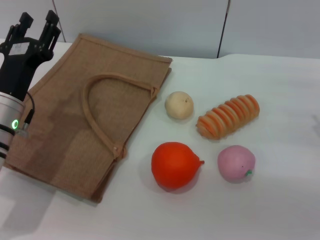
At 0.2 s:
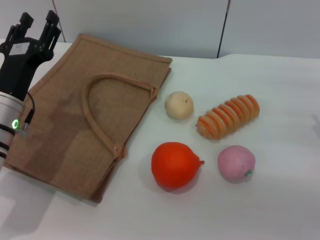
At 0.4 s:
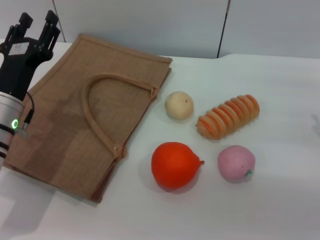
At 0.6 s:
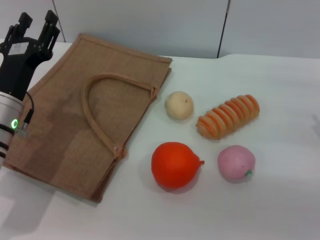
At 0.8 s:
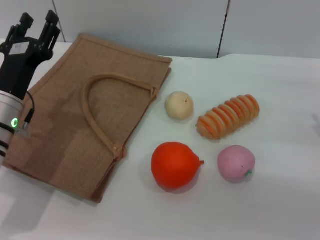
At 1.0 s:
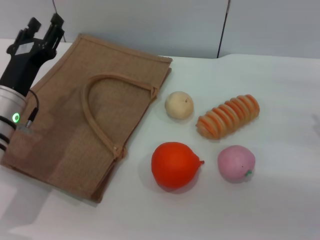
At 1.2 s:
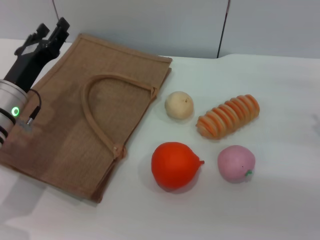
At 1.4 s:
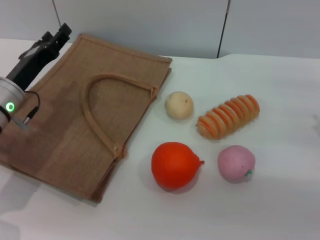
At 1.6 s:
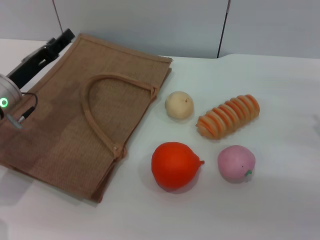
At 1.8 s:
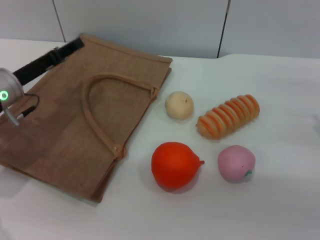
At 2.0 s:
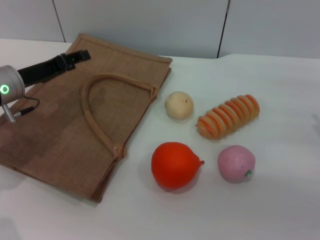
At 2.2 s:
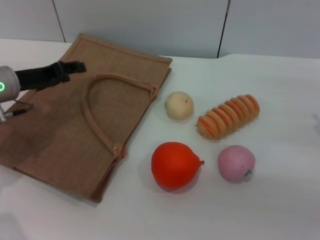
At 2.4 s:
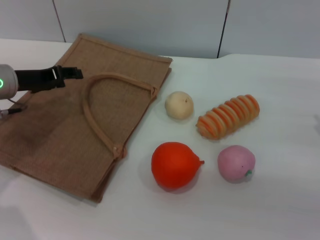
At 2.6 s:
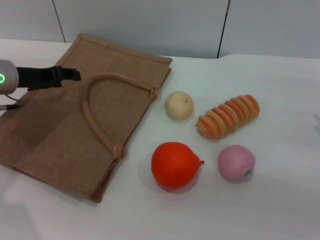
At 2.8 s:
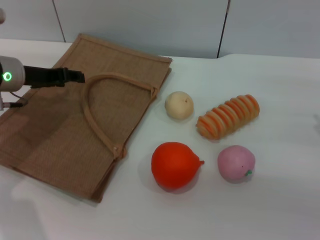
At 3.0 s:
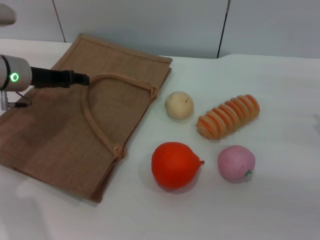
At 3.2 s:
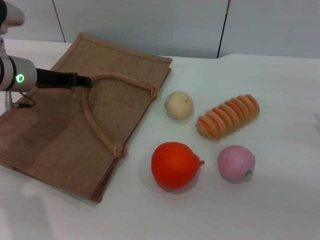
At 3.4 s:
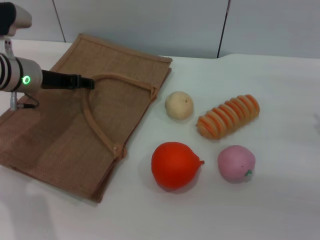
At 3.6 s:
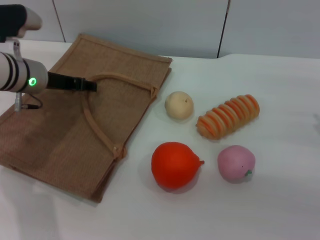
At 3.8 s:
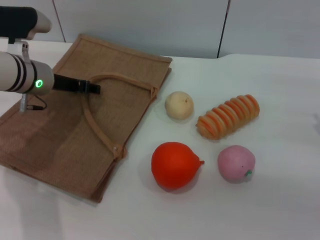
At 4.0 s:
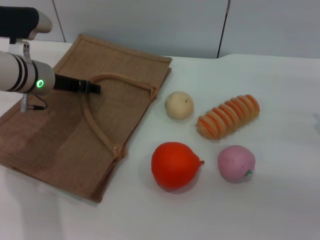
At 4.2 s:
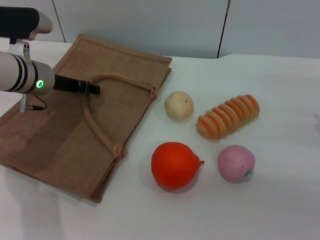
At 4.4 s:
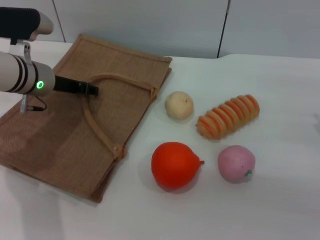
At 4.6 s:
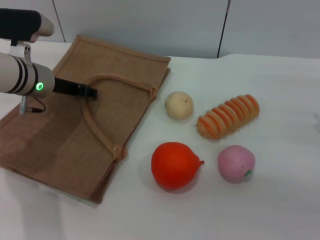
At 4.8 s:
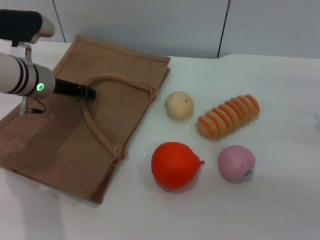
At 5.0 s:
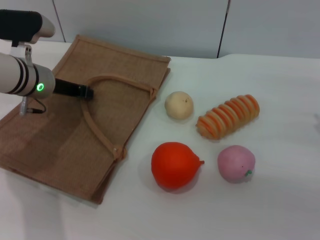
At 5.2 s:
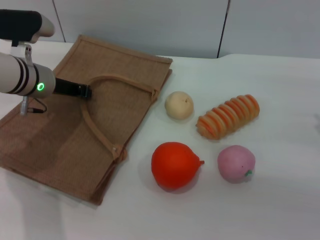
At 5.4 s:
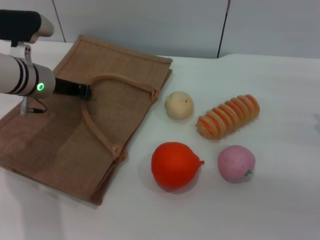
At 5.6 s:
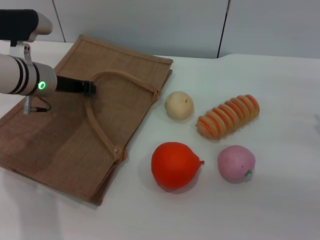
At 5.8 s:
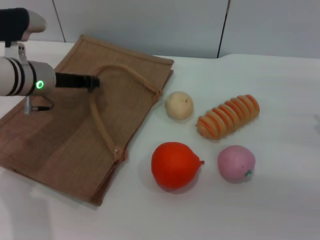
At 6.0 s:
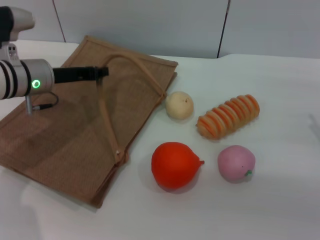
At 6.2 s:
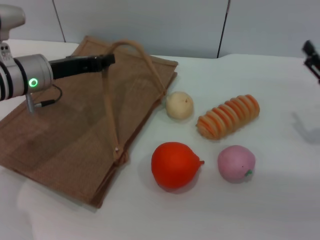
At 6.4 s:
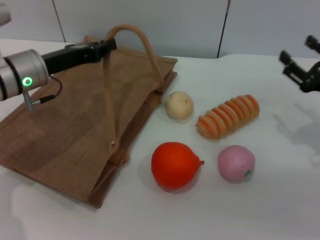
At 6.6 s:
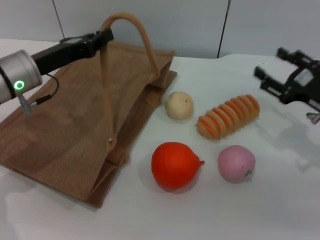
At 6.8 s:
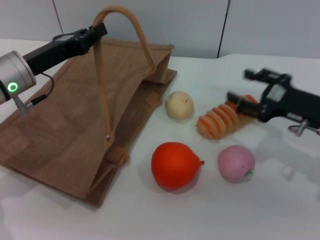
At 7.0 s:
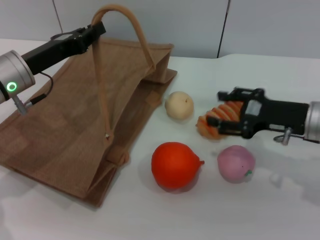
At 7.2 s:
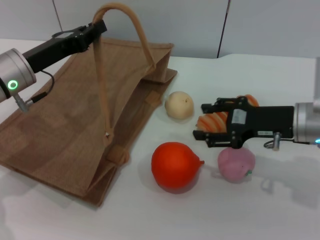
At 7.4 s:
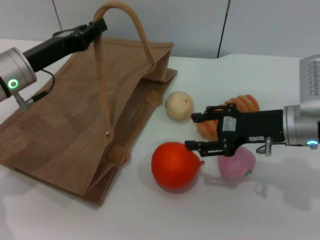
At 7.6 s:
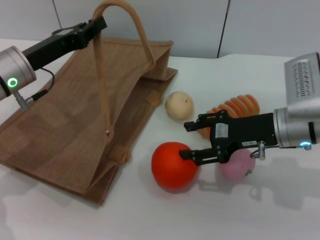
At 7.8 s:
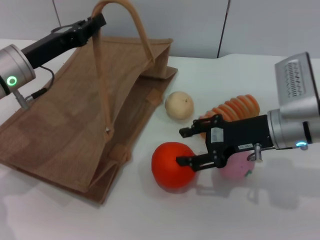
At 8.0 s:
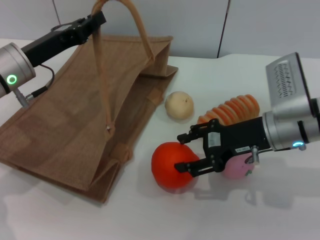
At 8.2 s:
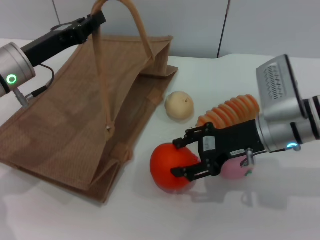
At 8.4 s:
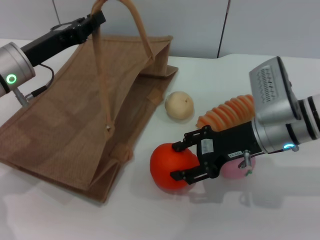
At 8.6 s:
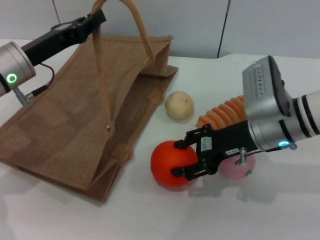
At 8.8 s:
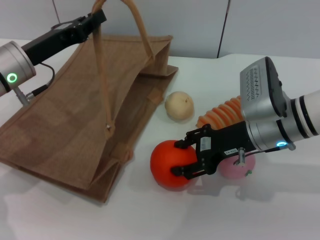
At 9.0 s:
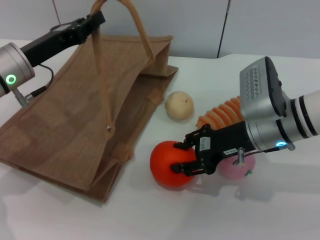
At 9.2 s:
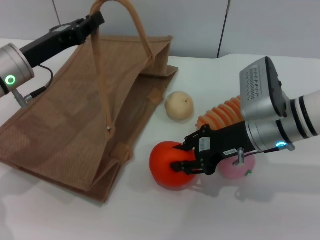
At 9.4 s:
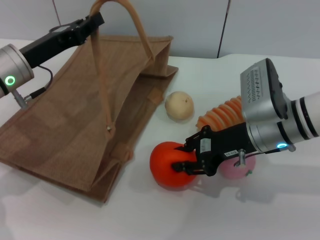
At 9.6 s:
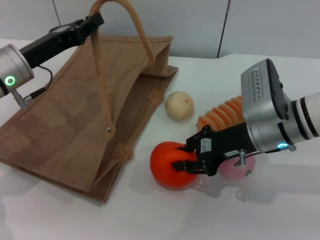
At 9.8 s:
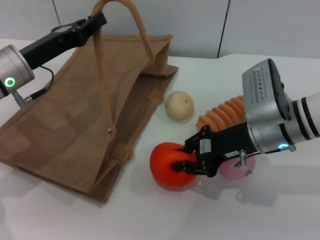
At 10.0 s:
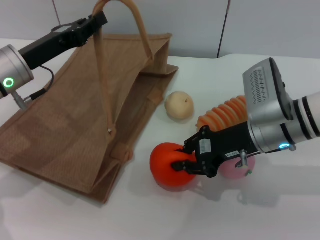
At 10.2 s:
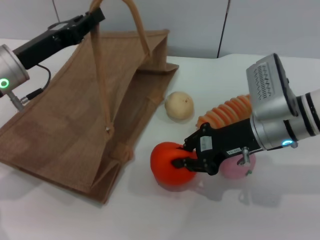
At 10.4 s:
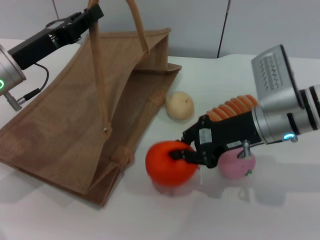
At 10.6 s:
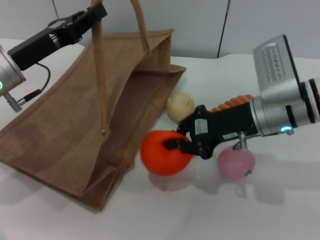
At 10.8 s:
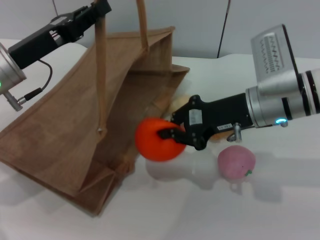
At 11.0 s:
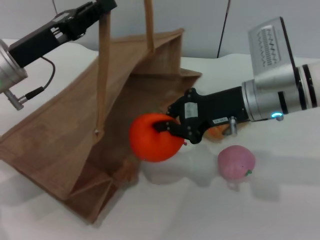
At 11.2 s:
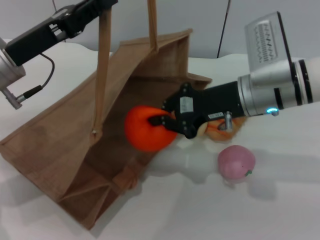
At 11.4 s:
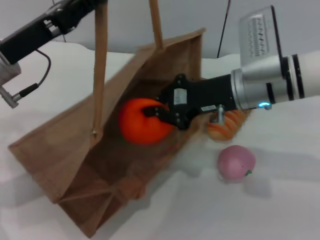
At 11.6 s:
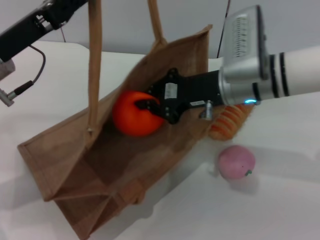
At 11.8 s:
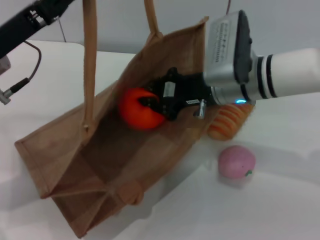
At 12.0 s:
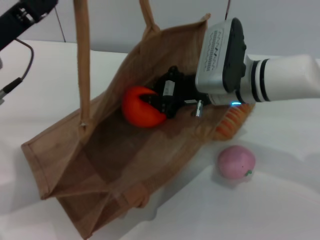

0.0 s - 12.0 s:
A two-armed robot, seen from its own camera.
Task of the whole recording: pick up the orange and peach from the table and place it in the brown handbag.
Step, 0.0 s - 5.8 s: Lift the woven bag with the left gripper to open it.
Step, 6.0 s - 10.8 s: Pick up the orange with the right gripper.
0.0 s - 1.6 s: The left gripper shifts by about 5 cm.
1.6 s - 3.0 s: The left gripper moves forward, some 5 cm.
3.0 s - 4.4 s: The grippers make only small movements.
4.4 s - 6.0 s: The left gripper closes.
6.0 s - 7.6 s: The right gripper goes some 15 cm to the left.
7.6 s - 9.0 s: The grippers make only small movements.
9.0 s - 10.4 s: The right gripper closes up.
10.4 s - 12.0 s: The right gripper moves to the left, approximately 5 cm. The left gripper moves roughly 5 cm.

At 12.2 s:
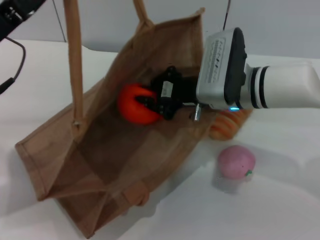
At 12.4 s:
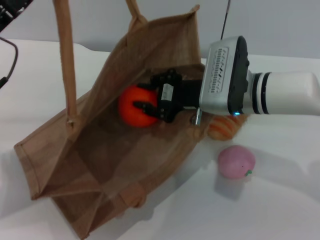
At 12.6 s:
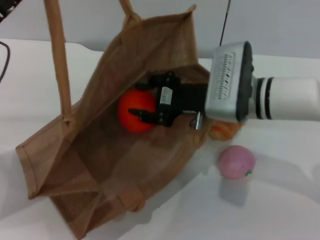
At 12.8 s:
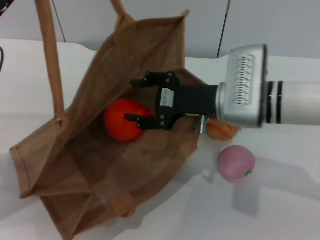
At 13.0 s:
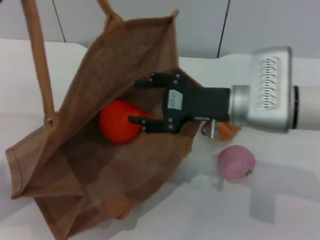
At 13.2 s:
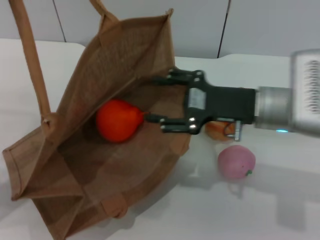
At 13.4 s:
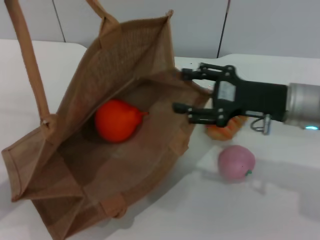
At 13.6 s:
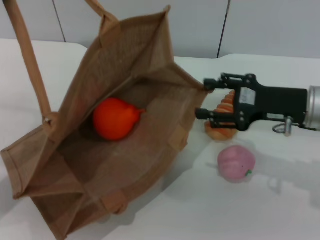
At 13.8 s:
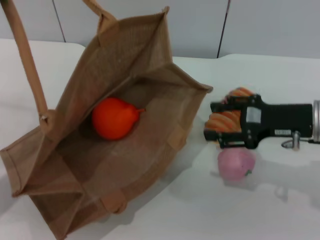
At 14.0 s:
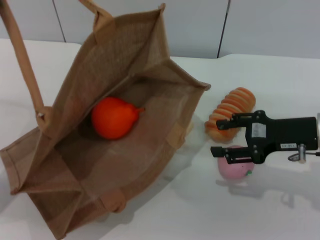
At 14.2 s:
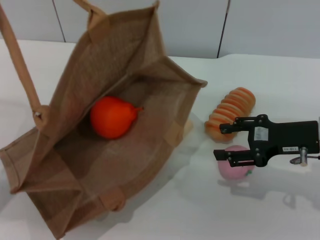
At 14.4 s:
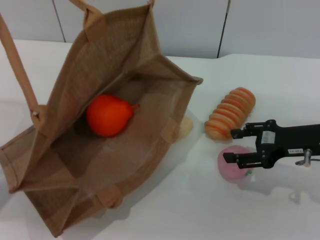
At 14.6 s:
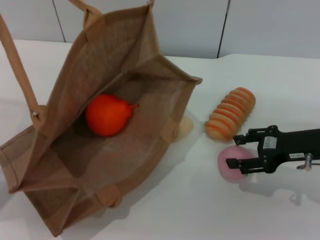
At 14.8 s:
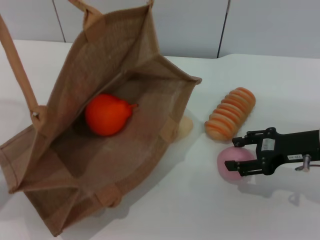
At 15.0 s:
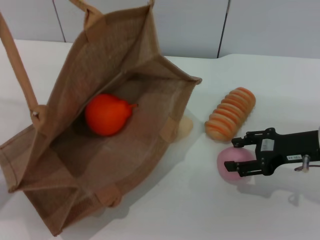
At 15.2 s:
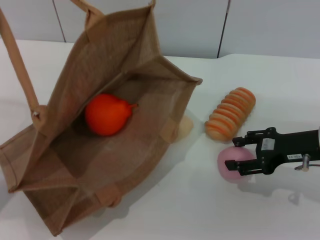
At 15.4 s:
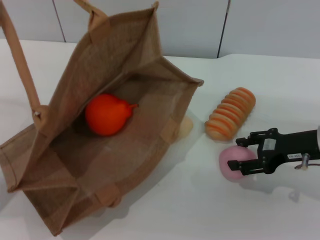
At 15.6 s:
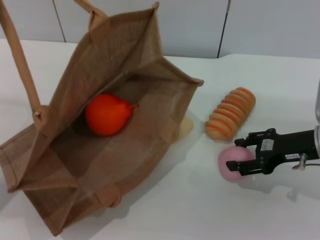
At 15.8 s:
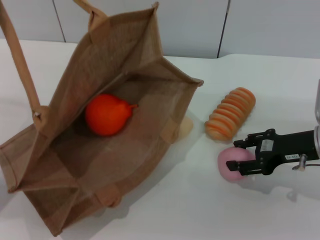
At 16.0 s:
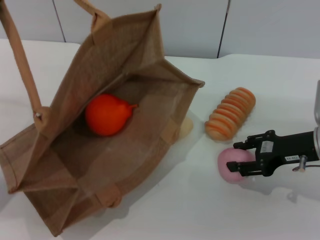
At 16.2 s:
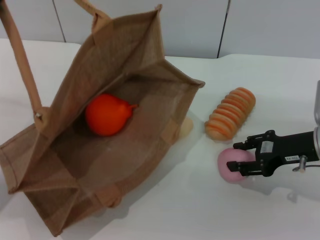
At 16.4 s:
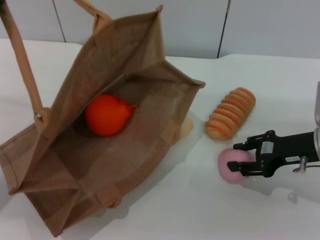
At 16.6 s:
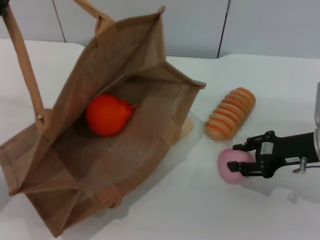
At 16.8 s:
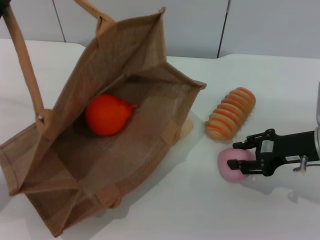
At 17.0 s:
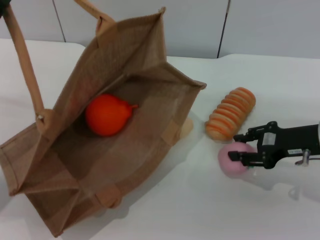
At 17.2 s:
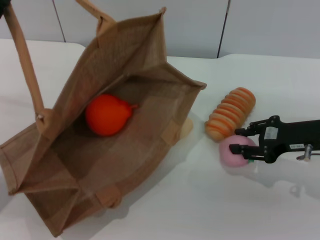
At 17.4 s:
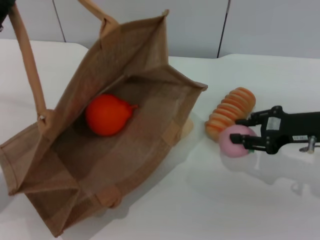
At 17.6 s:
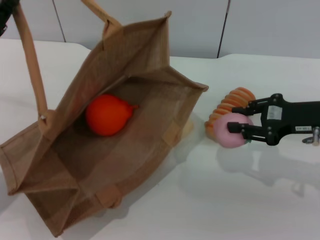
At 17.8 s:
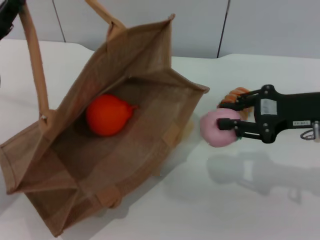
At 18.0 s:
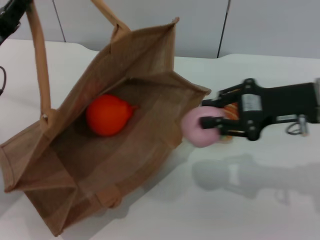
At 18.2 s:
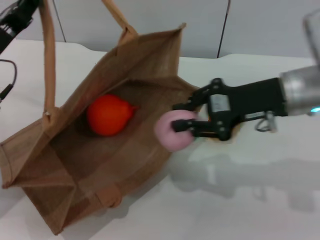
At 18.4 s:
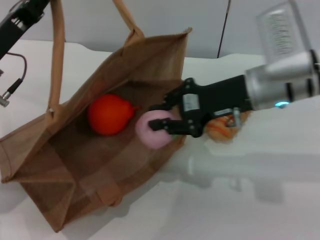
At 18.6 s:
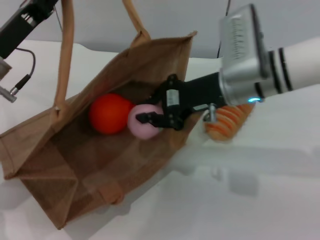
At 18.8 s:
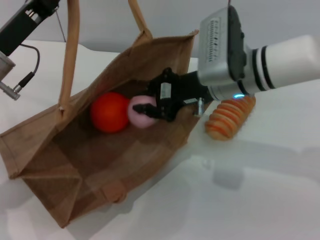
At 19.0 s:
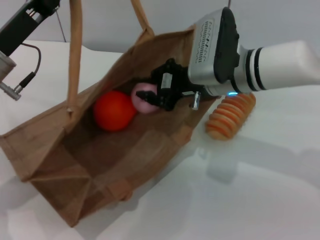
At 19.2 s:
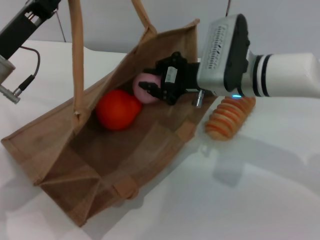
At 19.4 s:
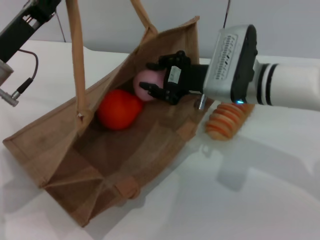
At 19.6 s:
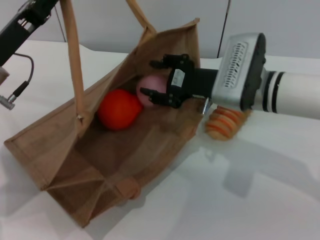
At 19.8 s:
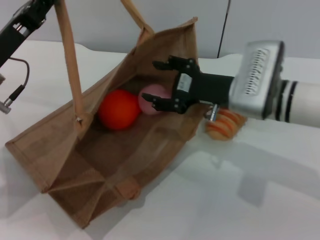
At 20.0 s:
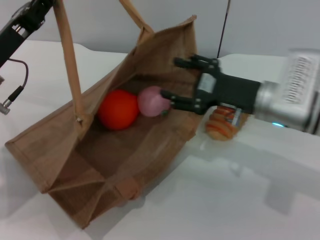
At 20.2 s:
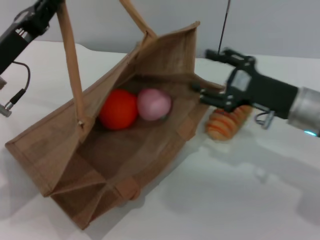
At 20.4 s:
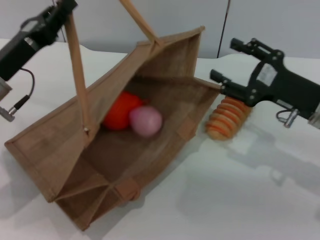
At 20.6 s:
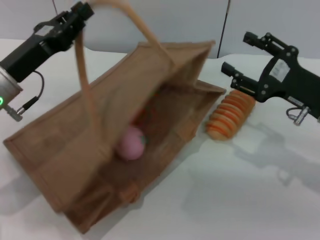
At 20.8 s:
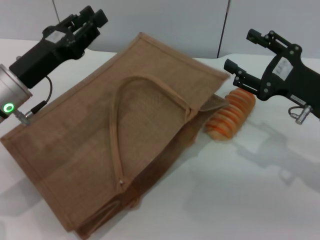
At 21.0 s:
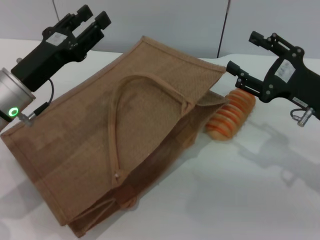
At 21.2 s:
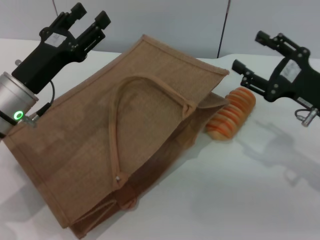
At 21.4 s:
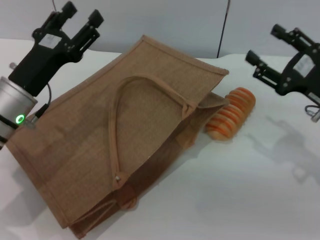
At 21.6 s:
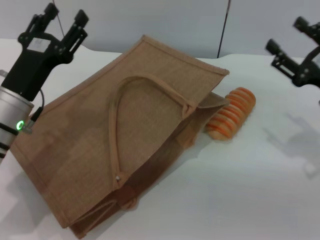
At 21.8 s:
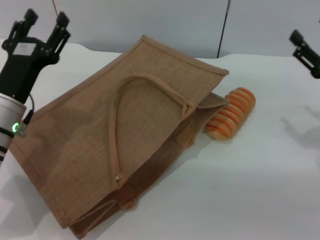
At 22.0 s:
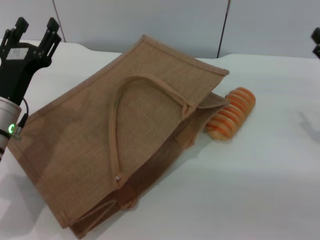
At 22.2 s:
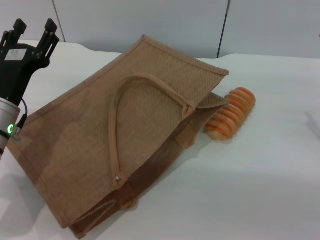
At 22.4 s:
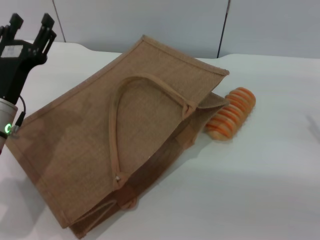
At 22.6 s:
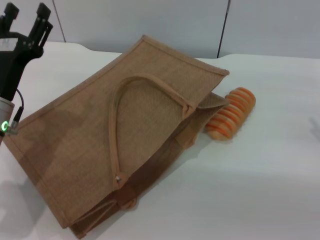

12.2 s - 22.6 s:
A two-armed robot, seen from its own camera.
Task of the whole recording: pick up the orange and peach from the table and place it in the brown handbag.
Step, 13.4 s - 17.4 s: Pick up the peach with the right gripper.
Step, 17.8 s - 20.0 s: Place the peach into the woven bag with the right gripper.
Step, 20.2 s - 21.4 s: Lower the woven bag with the left gripper to close it.
12.2 s - 13.6 s: The left gripper changes place by roughly 5 cm, while the right gripper shifts about 15 cm to the right, and opens.
13.6 s - 15.2 s: The right gripper changes place by roughly 5 cm.
15.2 s - 16.6 s: Both grippers stay about where they are.
16.6 s - 18.2 s: The right gripper goes roughly 10 cm upward and to the left.
18.2 s - 19.6 s: The right gripper is displaced to the left and downward by approximately 10 cm.
19.6 s - 21.2 s: The right gripper shifts roughly 15 cm to the right and backward; the left gripper opens its fingers.
21.2 s - 22.6 s: The right gripper heads to the right, covering approximately 5 cm.
